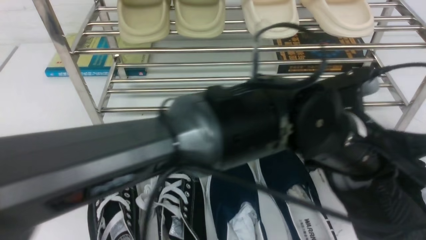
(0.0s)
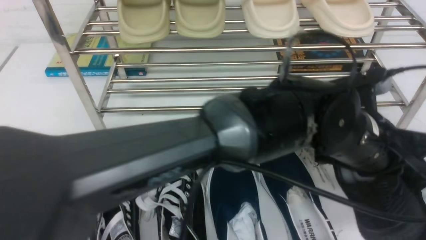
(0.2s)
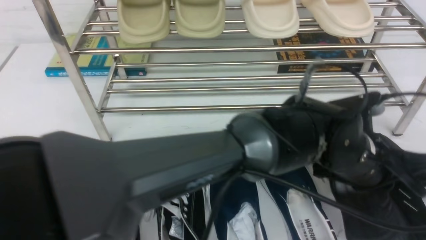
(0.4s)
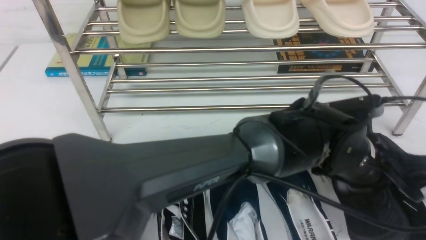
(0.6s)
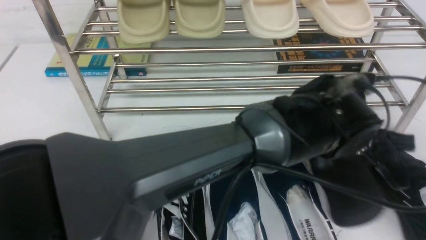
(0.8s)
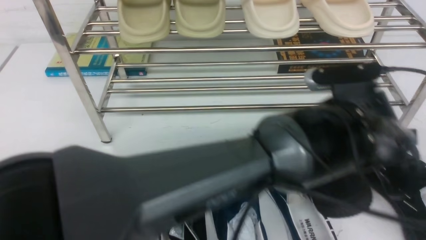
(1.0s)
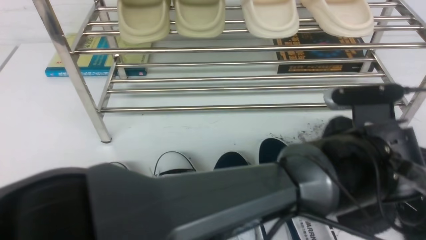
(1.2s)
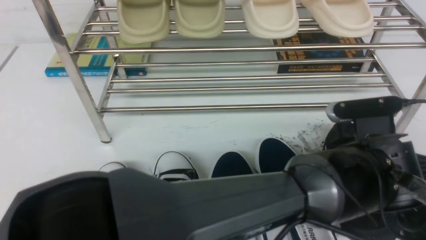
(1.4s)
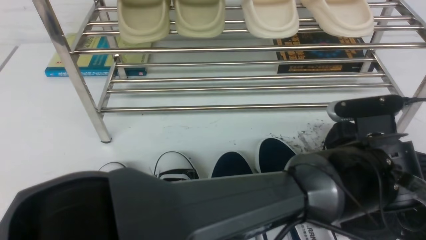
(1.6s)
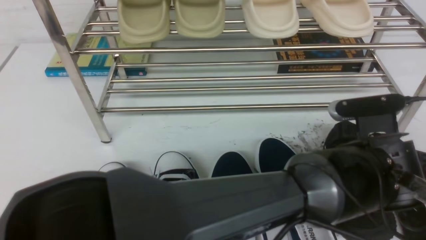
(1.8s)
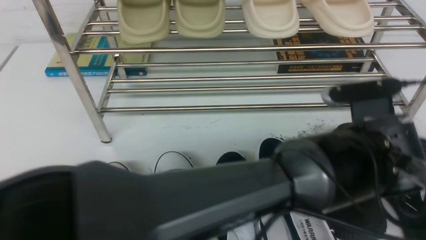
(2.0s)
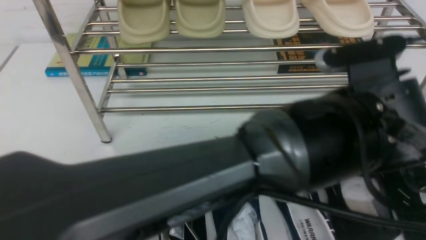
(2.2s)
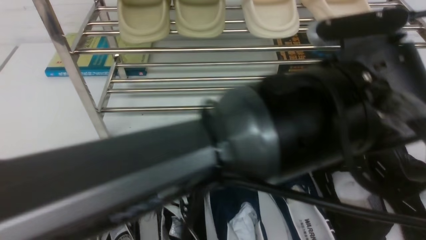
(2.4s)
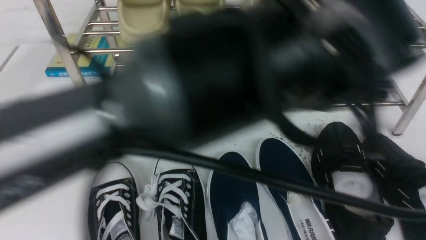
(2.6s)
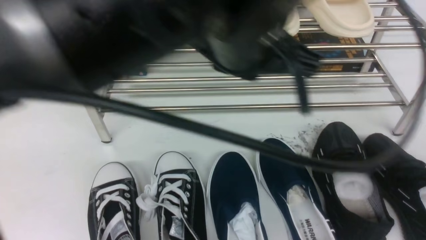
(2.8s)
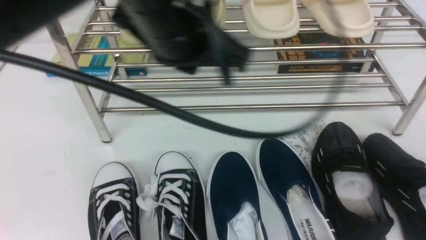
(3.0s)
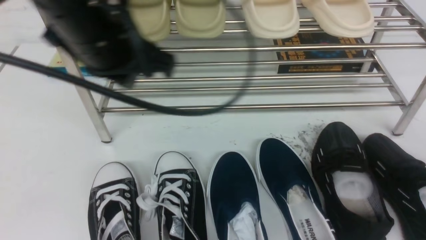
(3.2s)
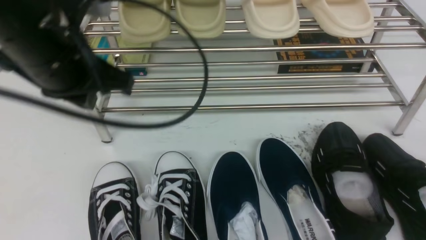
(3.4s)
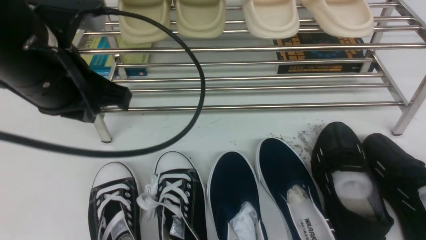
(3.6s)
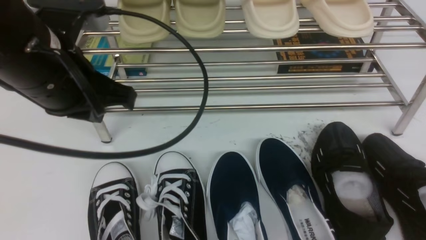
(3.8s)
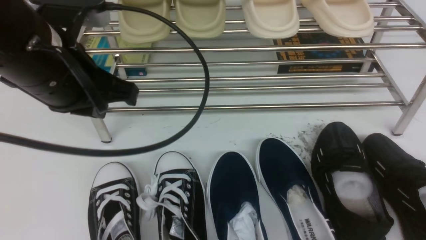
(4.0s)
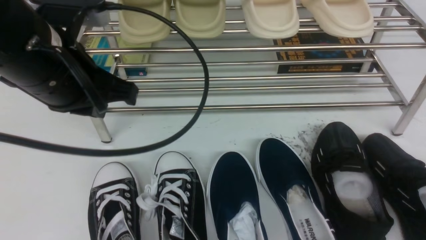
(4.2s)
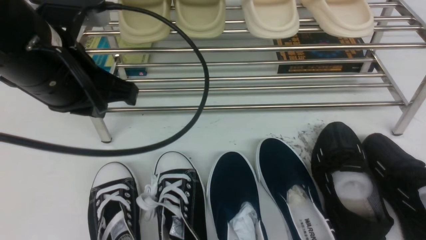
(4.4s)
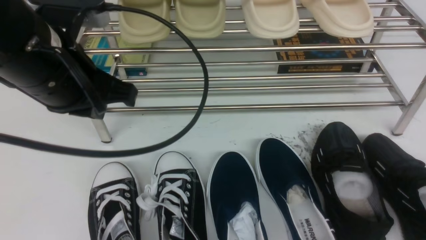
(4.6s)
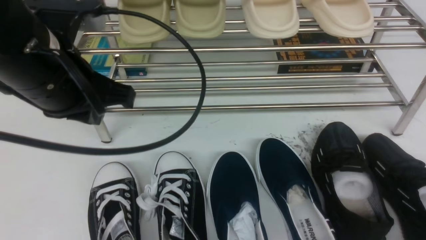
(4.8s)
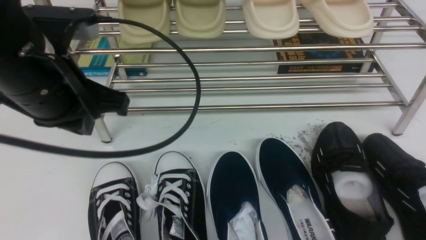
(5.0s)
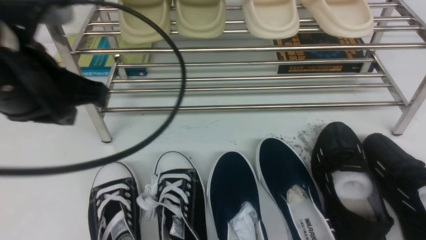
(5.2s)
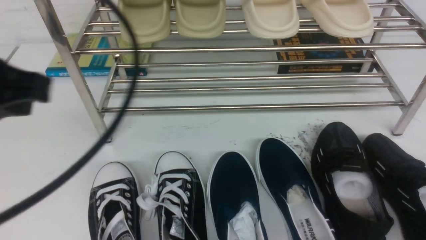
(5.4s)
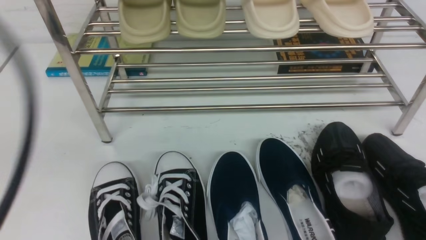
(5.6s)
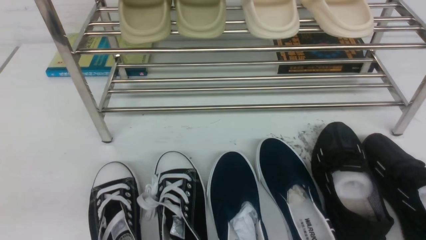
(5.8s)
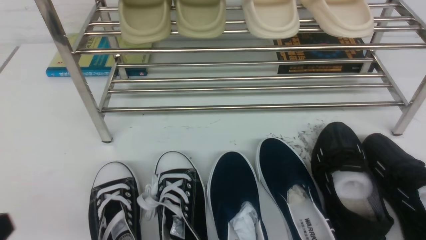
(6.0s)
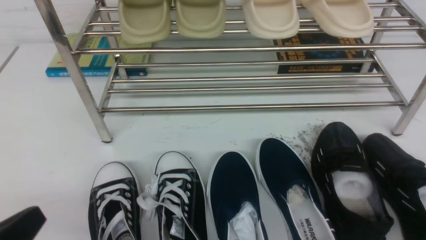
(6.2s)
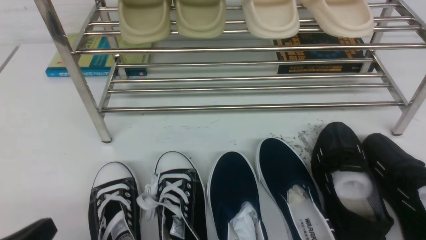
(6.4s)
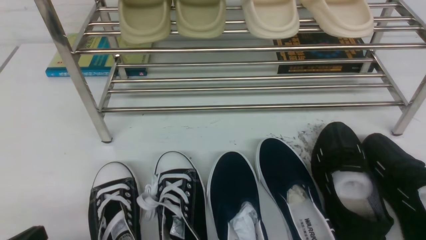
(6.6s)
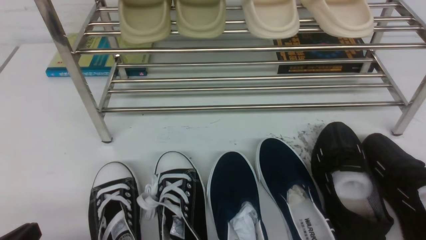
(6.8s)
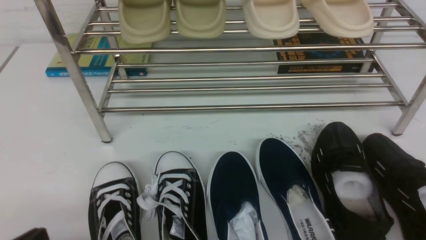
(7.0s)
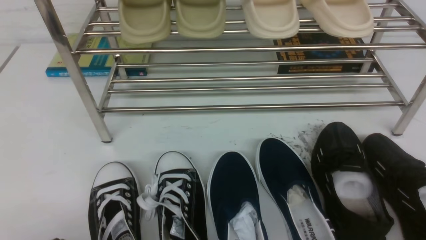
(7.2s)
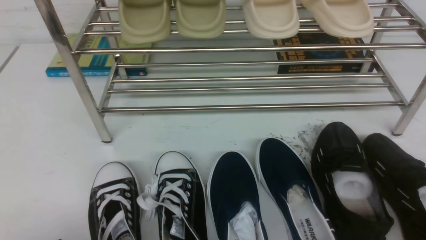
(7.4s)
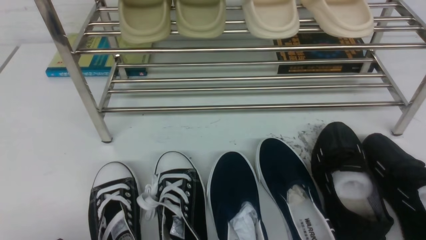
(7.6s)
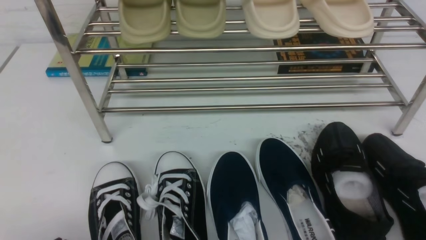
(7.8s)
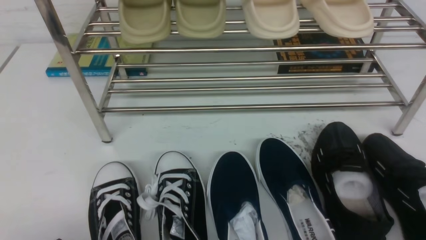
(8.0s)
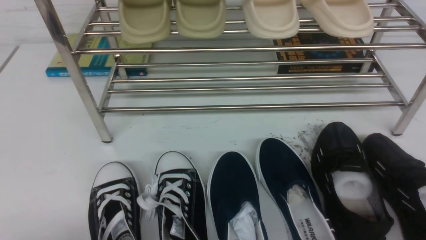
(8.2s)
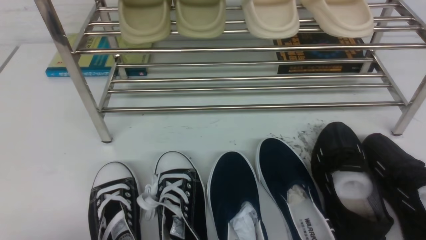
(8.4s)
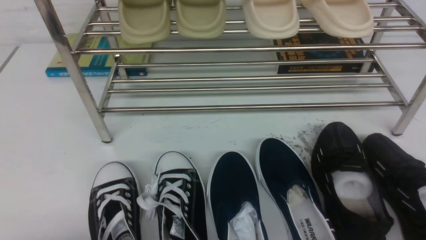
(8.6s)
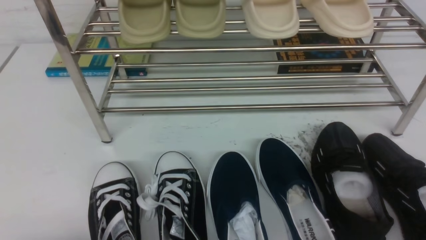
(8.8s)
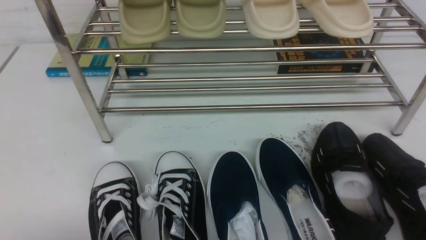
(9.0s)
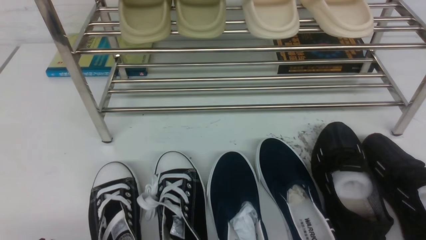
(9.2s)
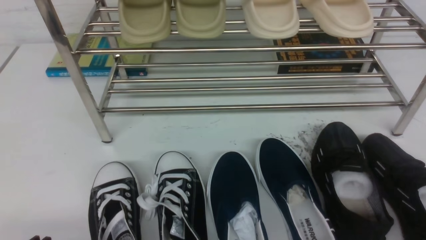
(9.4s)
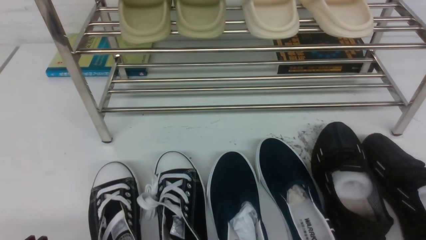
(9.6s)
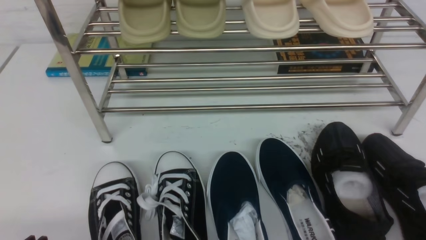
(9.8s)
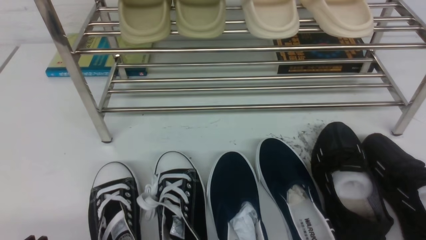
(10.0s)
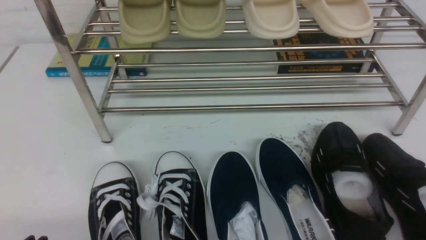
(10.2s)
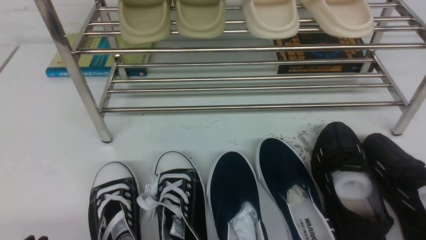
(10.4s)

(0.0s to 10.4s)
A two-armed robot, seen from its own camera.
Step, 0.0s - 2.2s: Use your left arm to remove the clamped shoe from the shoe rack and put it down.
0.0s - 1.4s: The left gripper shifts about 10 cm to the right and downward.
1.4s - 3.0s: The left gripper goes about 30 cm to the left and upward, and opens, then closes again, while the right gripper ends up roughly 5 cm from where it was.
3.0s - 4.4s: The left gripper shifts approximately 10 cm to the left. The right gripper goes about 10 cm backward and downward.
4.4s - 6.0s: The left gripper shifts about 25 cm backward, to the left and downward. Meanwhile the right gripper travels downward by some 10 cm.

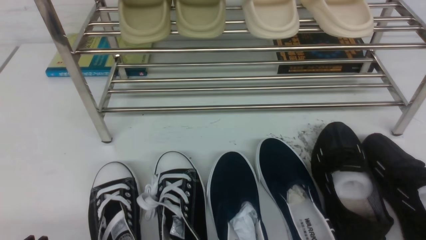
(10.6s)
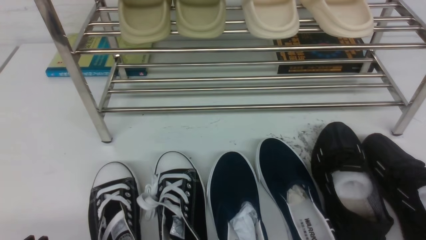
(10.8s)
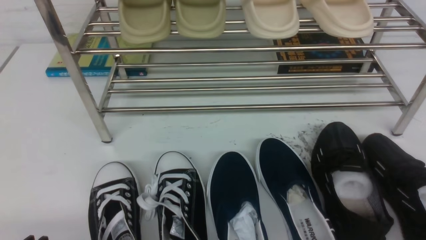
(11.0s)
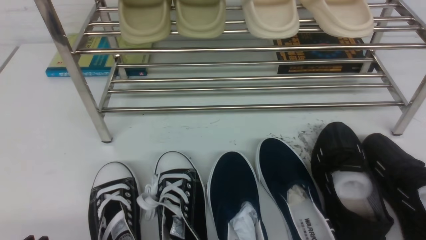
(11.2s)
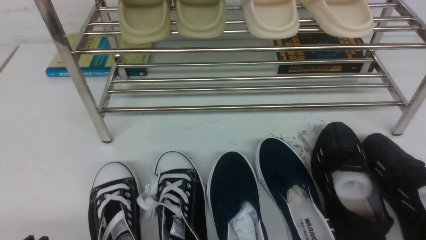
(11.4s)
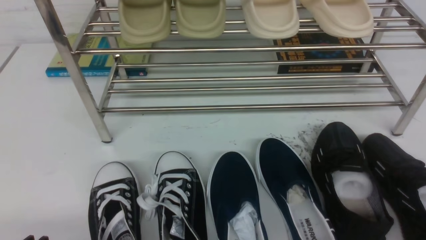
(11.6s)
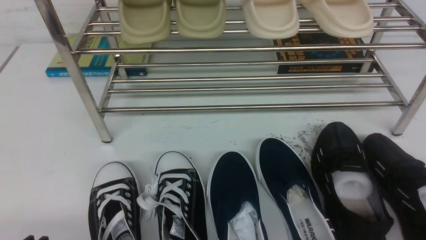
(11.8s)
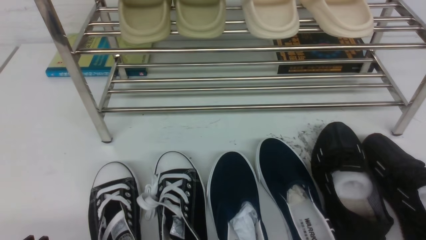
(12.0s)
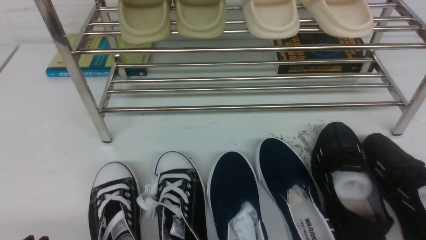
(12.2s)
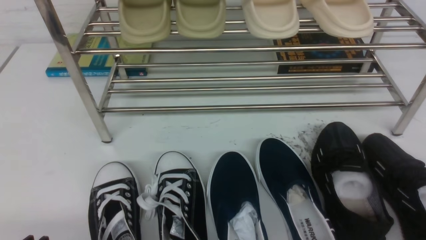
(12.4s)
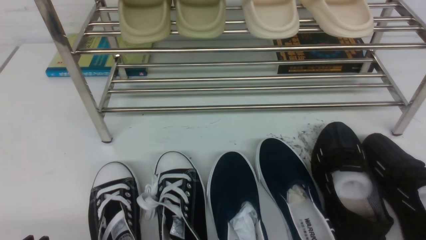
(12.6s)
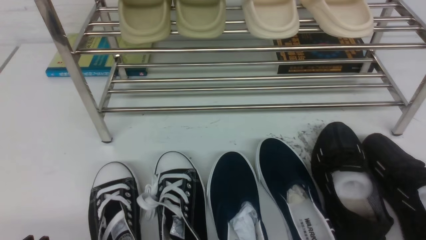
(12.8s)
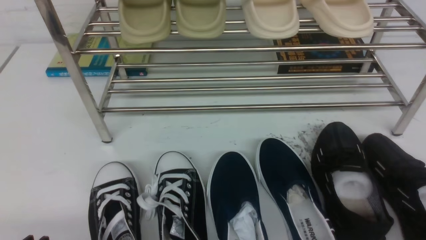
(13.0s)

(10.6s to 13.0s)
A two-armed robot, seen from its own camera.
10.6s - 13.0s: Both grippers stay about where they are.
